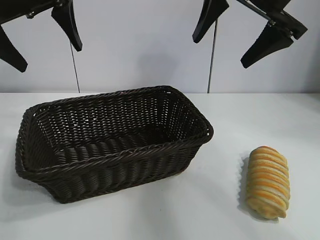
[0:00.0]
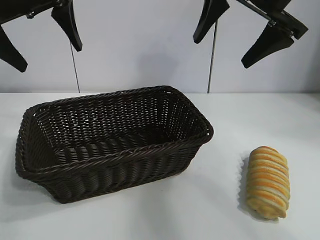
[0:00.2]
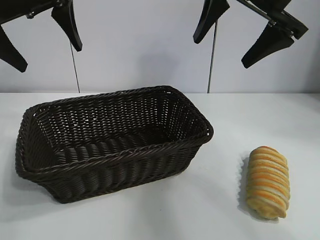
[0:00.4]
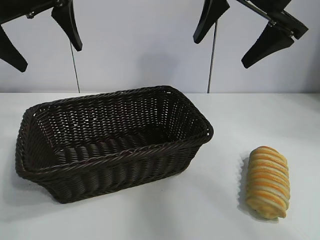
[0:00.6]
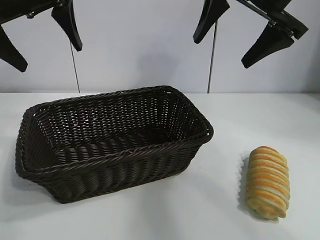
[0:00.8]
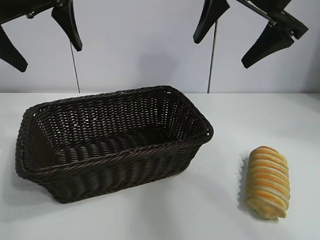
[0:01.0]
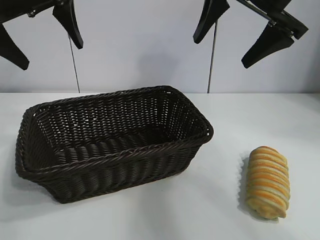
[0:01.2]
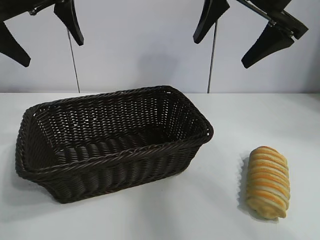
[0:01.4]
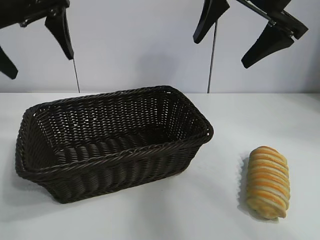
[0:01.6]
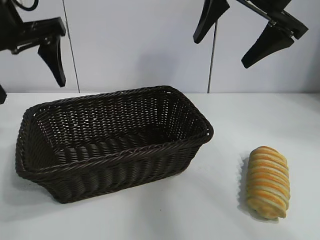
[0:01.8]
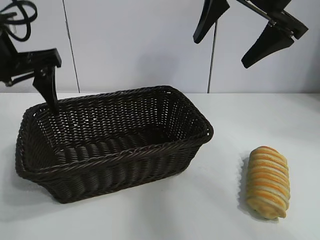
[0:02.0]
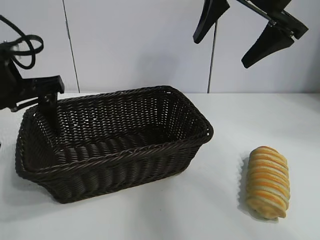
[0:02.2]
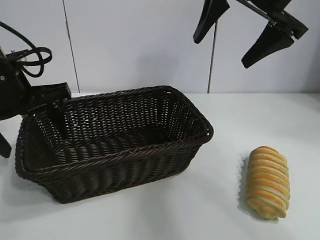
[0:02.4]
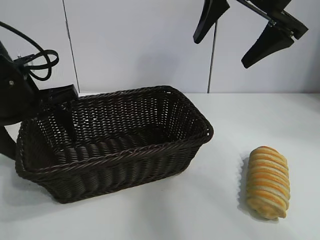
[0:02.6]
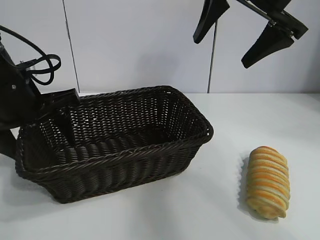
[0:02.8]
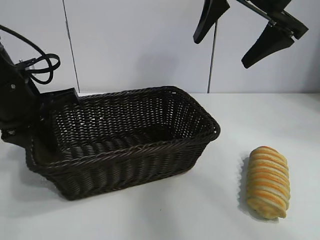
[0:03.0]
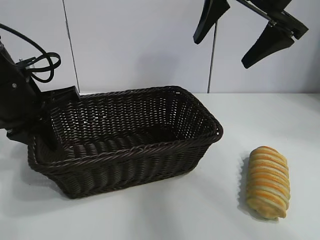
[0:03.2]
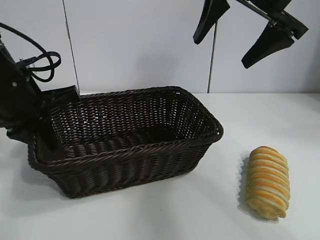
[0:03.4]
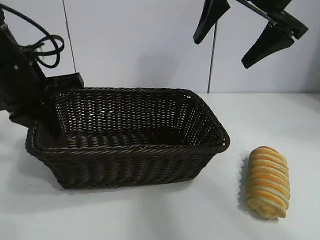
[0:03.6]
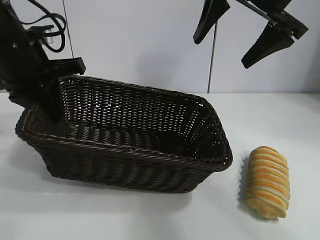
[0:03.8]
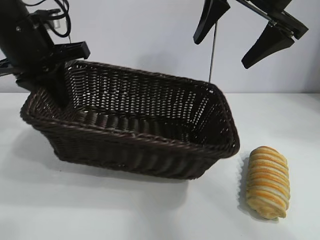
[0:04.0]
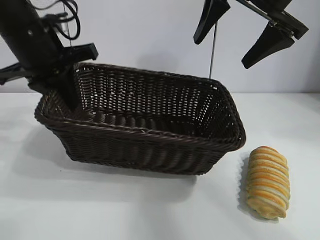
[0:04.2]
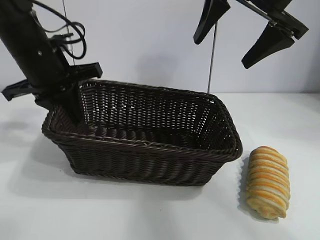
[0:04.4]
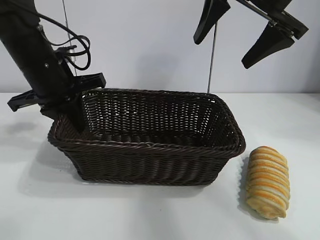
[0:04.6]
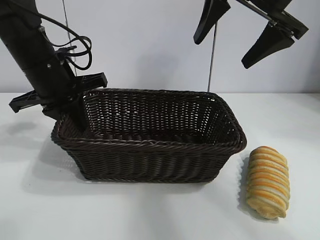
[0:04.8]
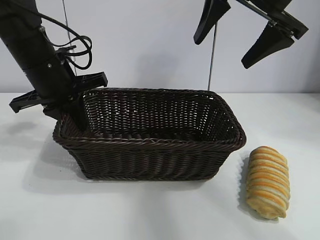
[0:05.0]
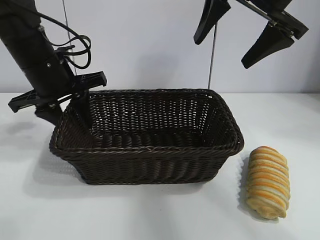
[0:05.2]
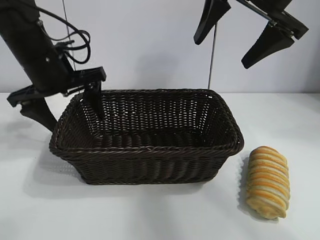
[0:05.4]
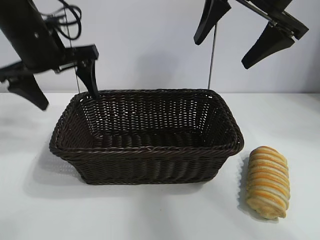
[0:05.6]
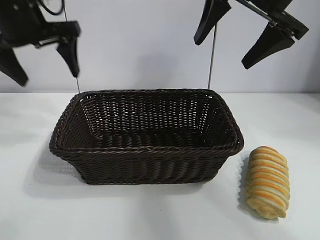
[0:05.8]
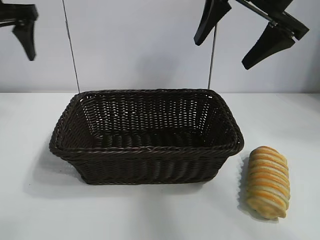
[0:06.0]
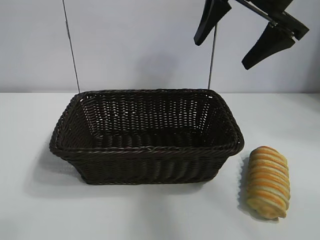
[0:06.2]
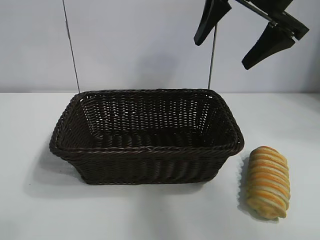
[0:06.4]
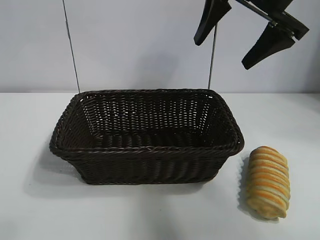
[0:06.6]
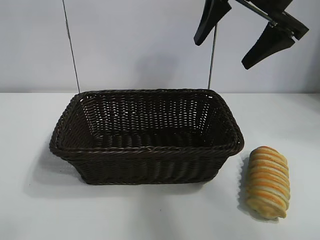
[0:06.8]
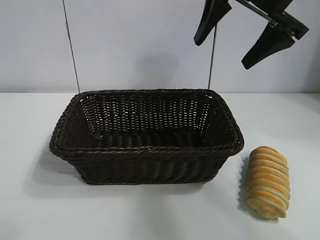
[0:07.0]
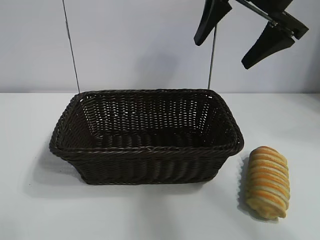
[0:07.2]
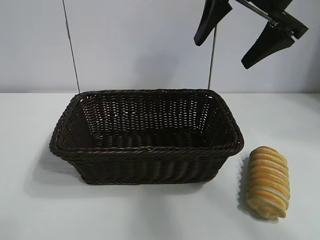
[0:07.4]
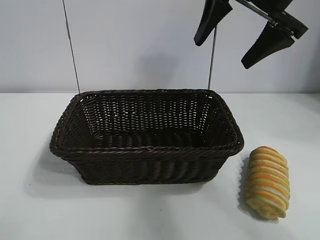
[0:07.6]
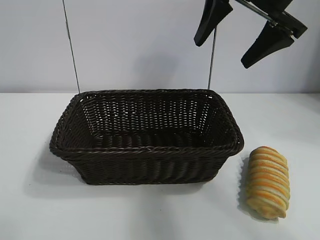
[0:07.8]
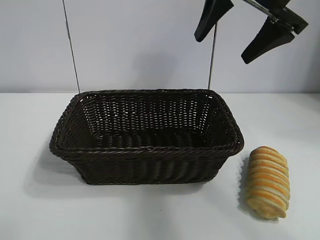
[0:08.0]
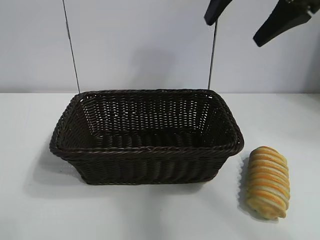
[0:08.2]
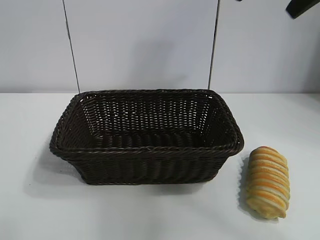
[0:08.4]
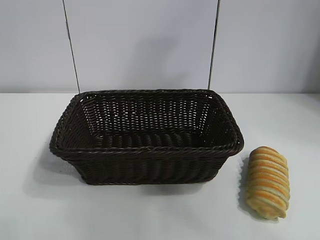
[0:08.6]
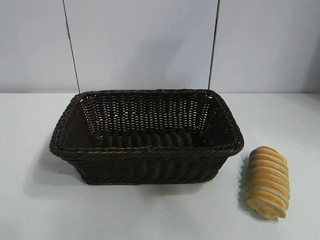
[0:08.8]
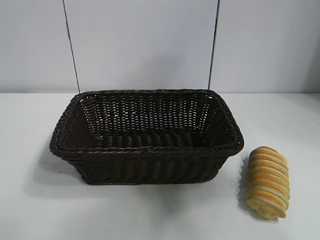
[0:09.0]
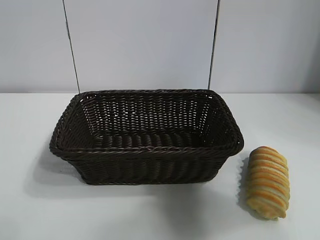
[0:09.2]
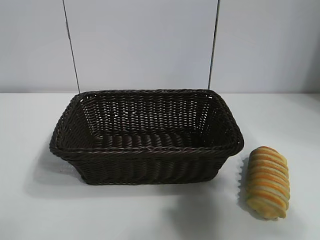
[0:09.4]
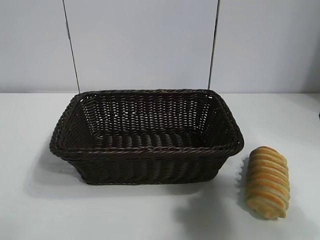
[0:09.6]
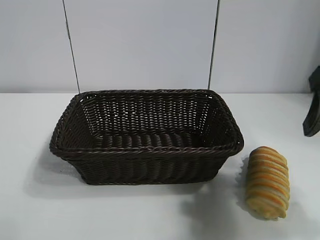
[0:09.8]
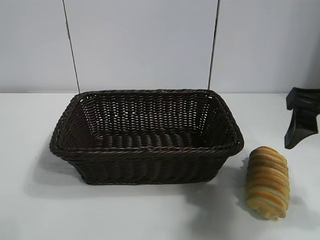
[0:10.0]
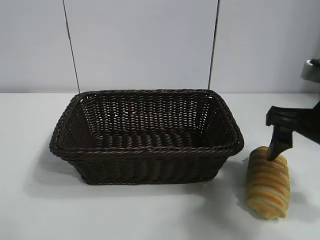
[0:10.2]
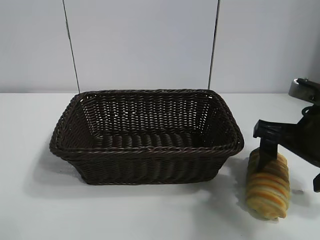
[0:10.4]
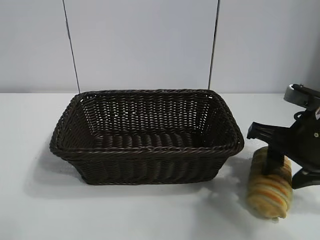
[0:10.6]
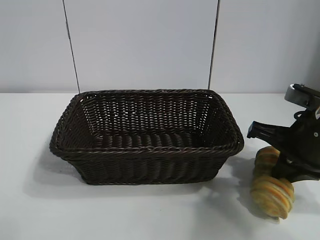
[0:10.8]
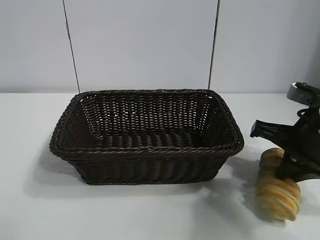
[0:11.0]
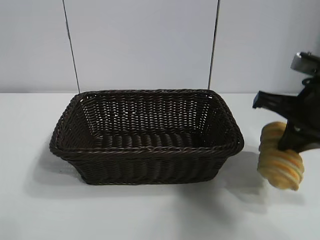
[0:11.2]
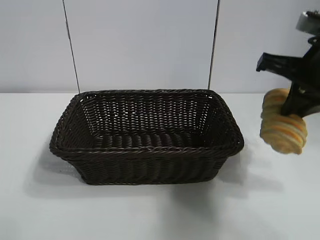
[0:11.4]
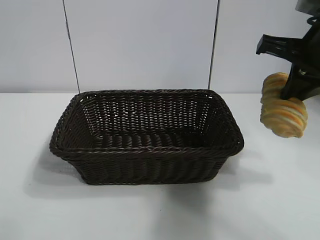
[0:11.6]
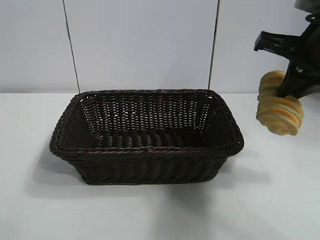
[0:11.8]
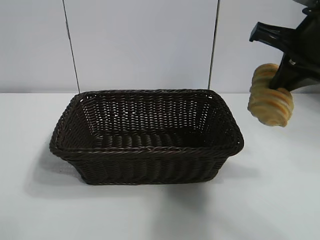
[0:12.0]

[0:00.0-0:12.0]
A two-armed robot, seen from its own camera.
Task of the whole recording: pick up the long bread and put it into the basket.
Step, 0:01.2 to 0:03.2: Grasp the basket with the left gripper.
Step, 0:03.6 to 0:05.6: Place the basket in the center of the table with the left gripper.
Step, 0:06.0 to 0:10.6: Grasp the long bread with right gripper.

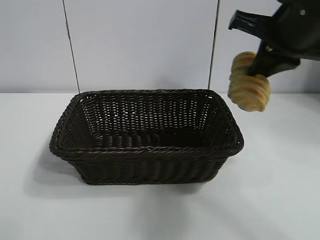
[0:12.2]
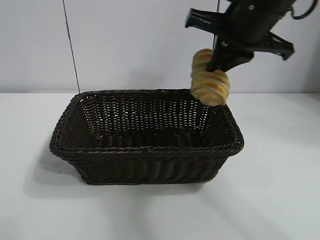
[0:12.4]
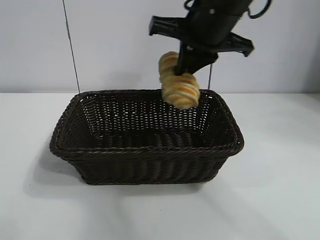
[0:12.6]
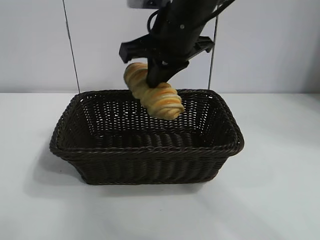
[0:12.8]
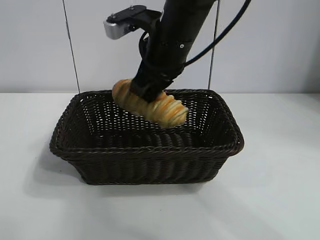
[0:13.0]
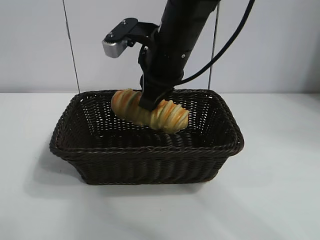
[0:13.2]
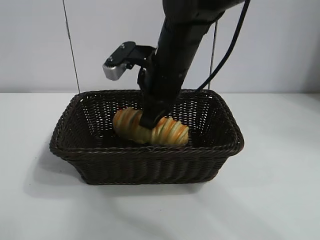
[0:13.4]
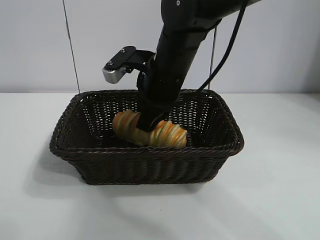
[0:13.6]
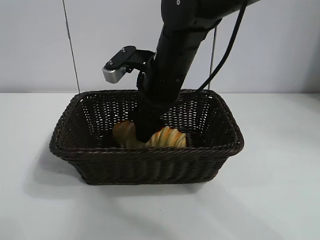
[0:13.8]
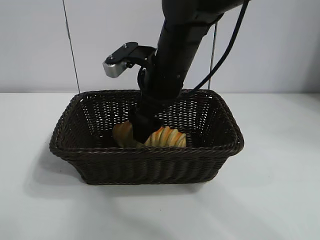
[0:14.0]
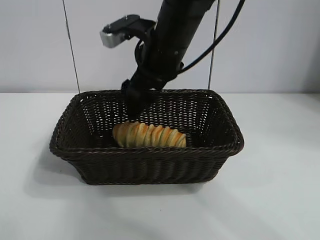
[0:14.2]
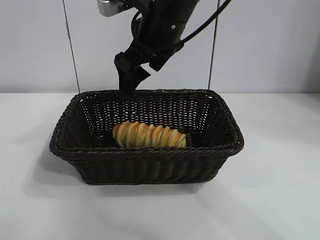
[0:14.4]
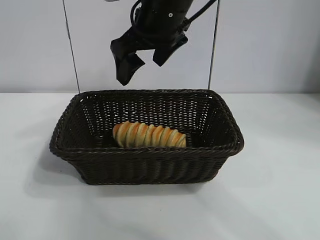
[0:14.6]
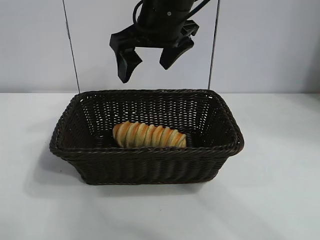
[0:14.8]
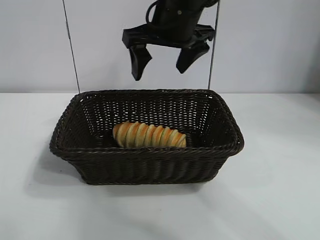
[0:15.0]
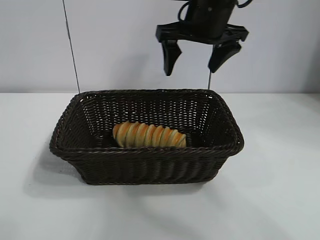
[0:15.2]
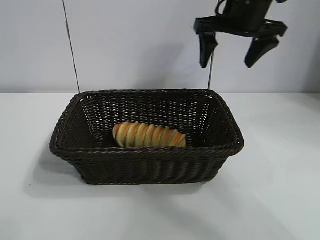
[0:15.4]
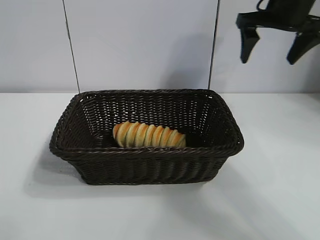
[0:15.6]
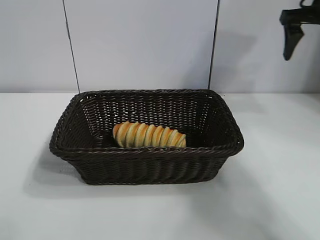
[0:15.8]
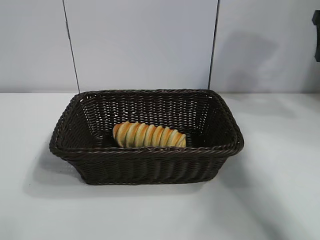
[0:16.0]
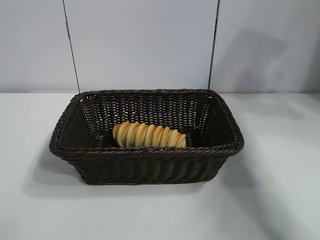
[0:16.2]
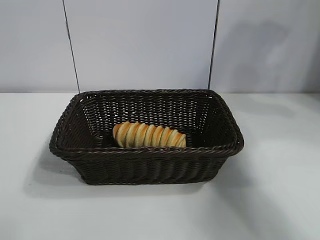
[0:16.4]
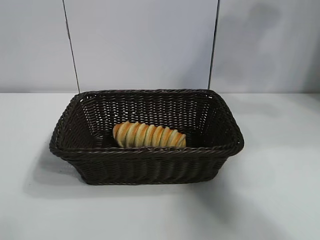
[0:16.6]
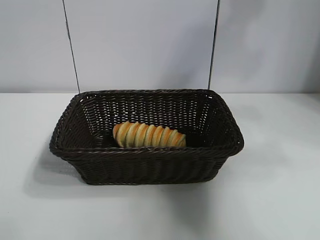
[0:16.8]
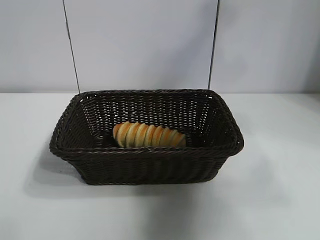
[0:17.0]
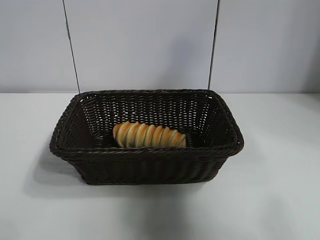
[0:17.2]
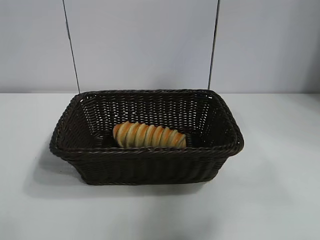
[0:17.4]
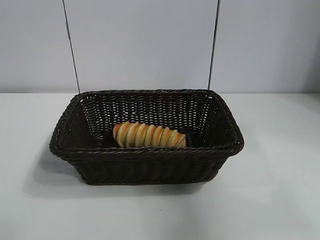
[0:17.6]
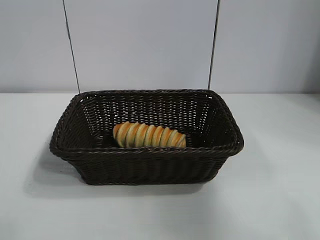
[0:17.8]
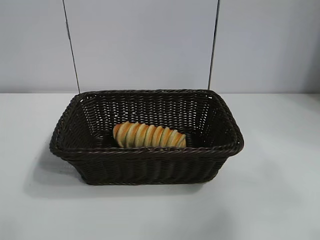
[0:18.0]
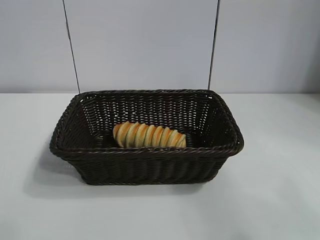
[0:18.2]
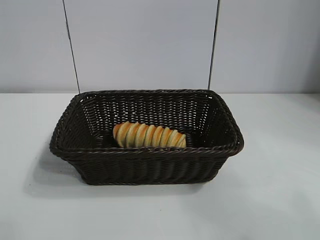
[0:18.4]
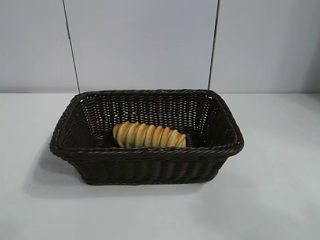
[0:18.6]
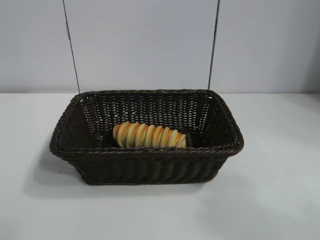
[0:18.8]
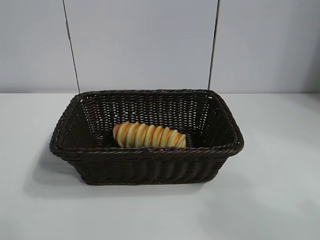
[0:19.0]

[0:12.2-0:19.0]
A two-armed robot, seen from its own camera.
Task of the whole recording: pick up the long bread and put it into the basket.
Step, 0:12.2 to 0:14.0: Place the long bread in the basket with right gripper.
